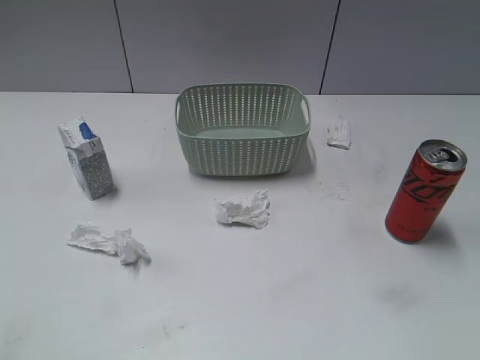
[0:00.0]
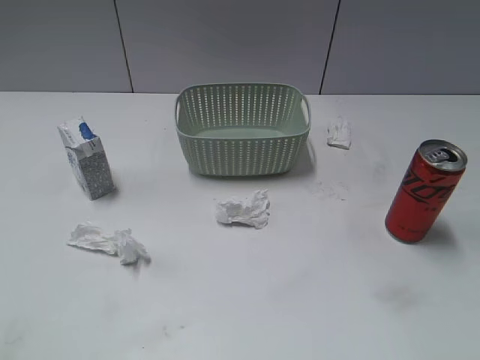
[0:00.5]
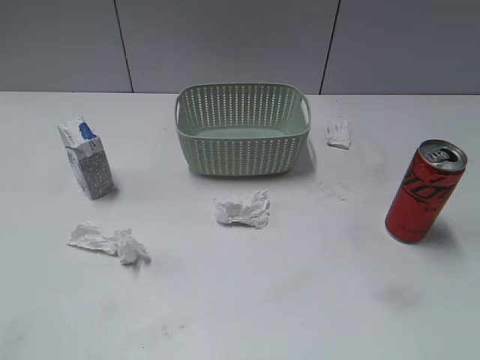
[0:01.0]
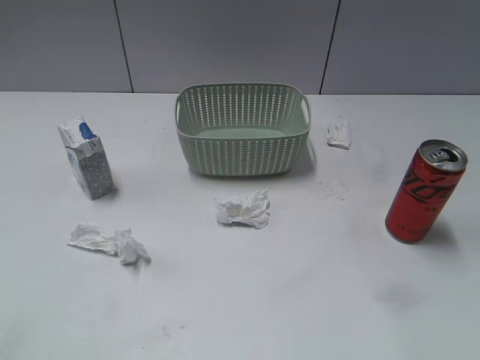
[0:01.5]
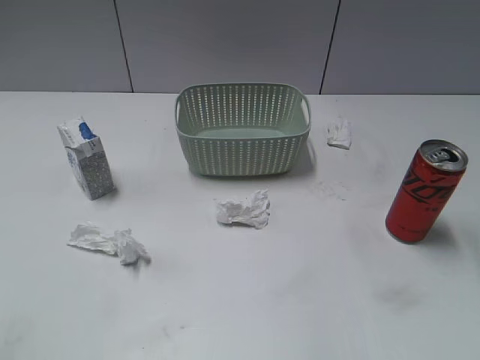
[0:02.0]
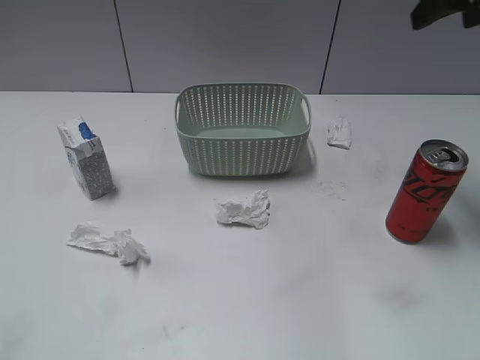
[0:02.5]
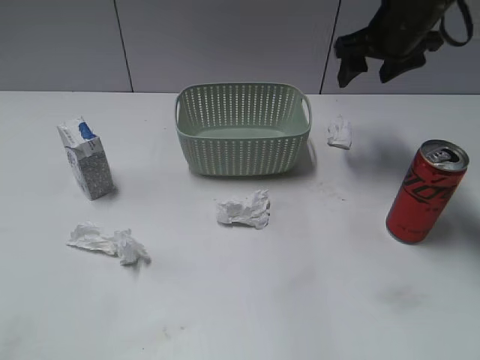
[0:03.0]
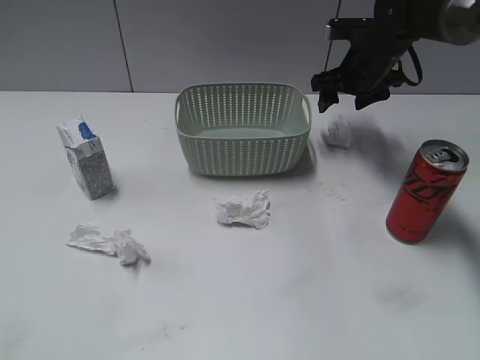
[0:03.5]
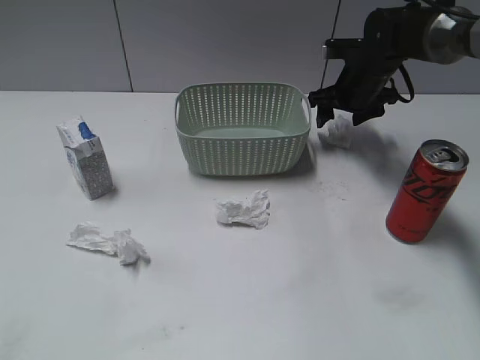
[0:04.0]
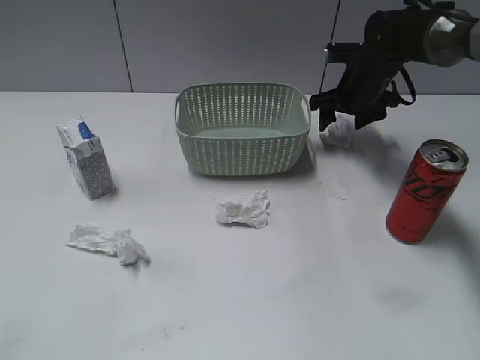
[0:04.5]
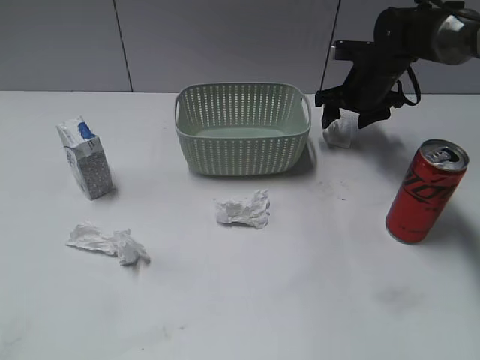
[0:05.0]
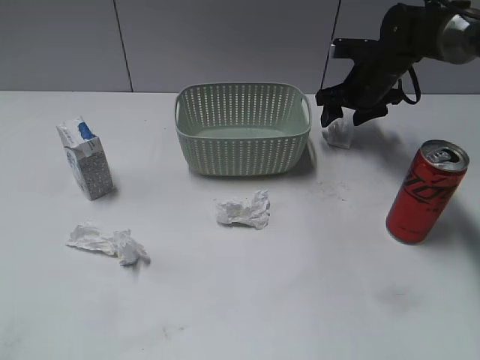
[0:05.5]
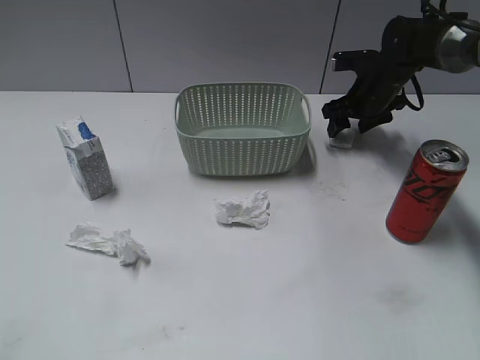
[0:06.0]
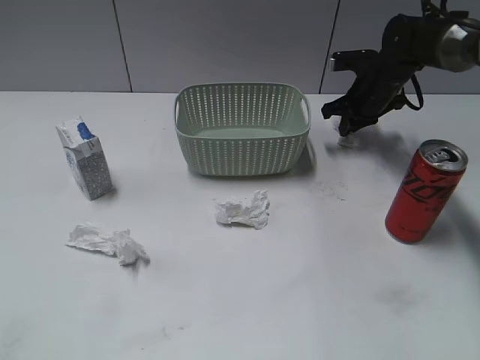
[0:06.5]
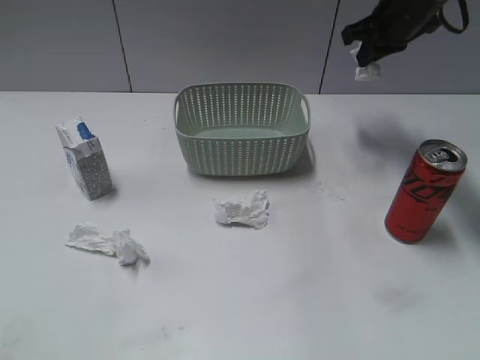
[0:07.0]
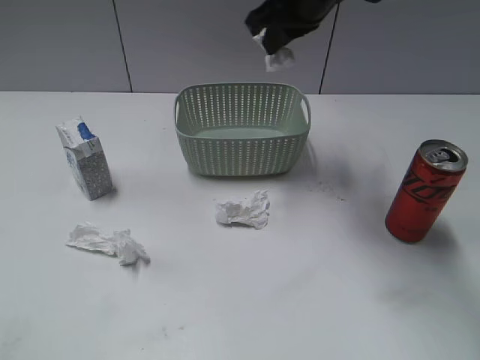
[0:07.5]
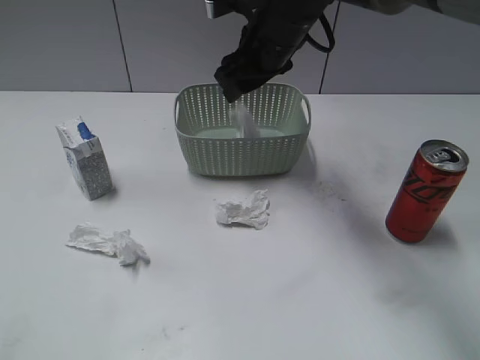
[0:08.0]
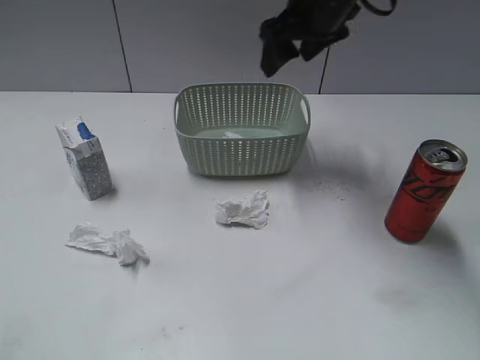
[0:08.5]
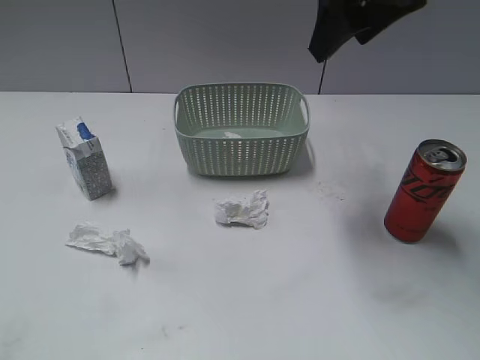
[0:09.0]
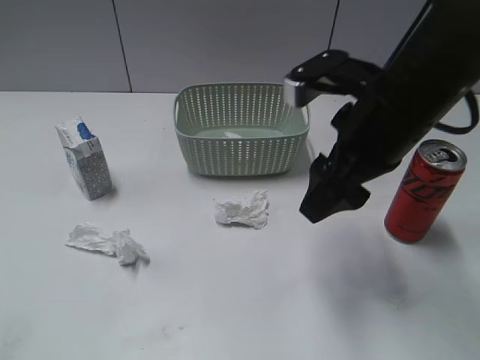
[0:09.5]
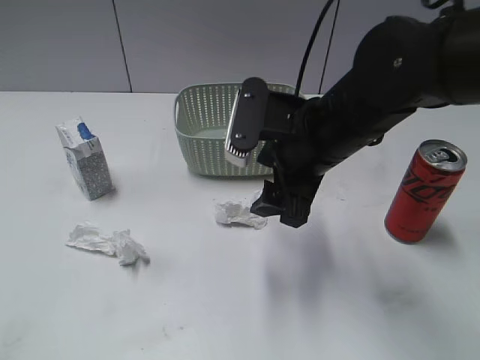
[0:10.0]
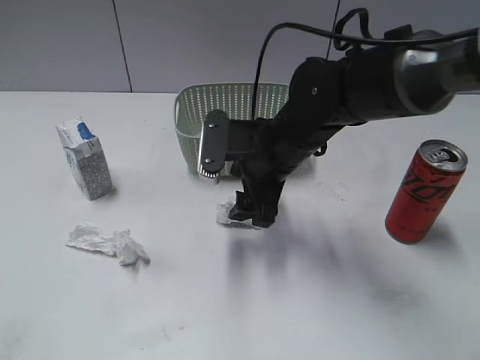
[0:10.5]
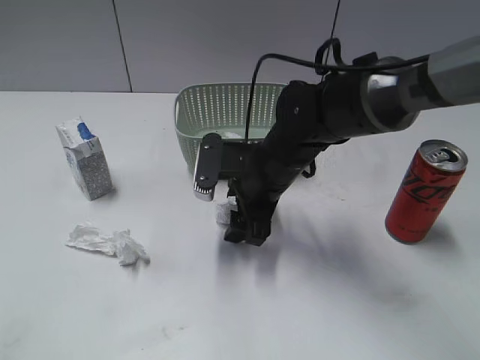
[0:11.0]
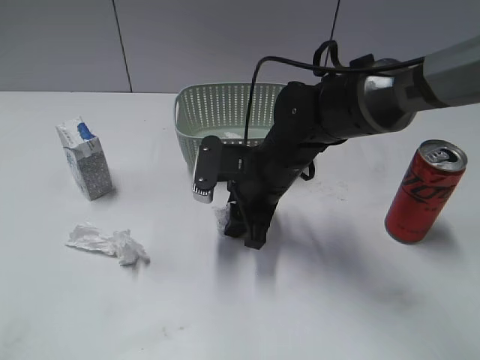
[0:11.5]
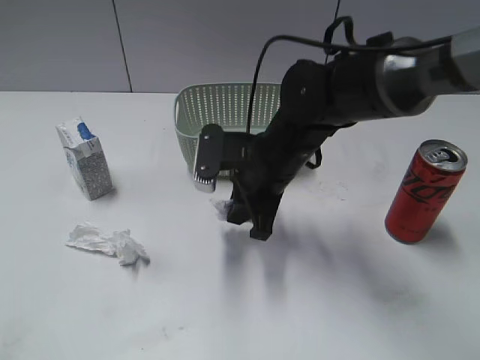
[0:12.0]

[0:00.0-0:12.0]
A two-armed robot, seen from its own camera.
Step, 0:02.5 to 0:06.5: Grasp the waste paper with right gripper.
Step, 0:07.0 to 0:08.0: Place the waste paper in the basket with right gripper.
Step, 0:08.5 to 0:12.0: Grasp the waste paper with right gripper.
0:02.0 to 0:04.0: The right gripper is displaced forward and downward by about 40 cm.
0:04.0 to 0:06.0: The grippers move only a little.
0:06.0 to 0:08.0: The right gripper shifts about 25 cm to the left, upward and backward, and closes, then opens again.
0:08.0 to 0:10.0: The right gripper heads backward, covering some 15 cm.
0:10.0 to 0:12.0: The right gripper is displaced downward by about 10 cm, and closes.

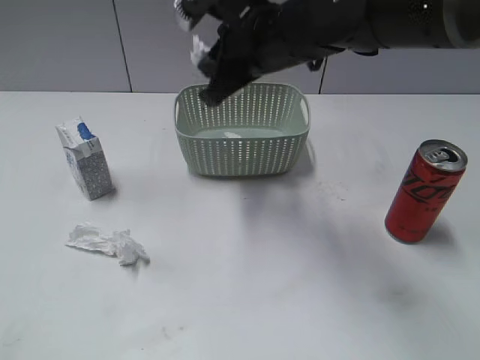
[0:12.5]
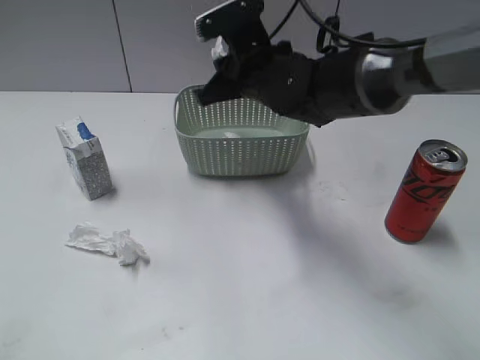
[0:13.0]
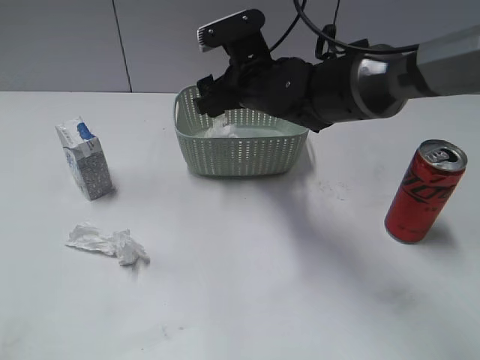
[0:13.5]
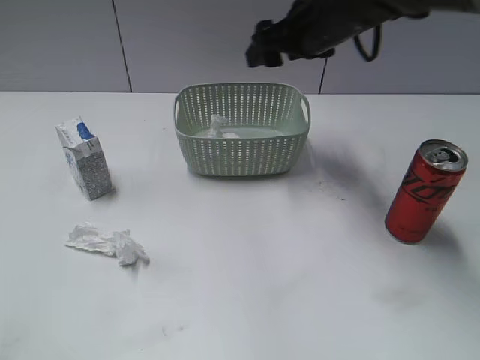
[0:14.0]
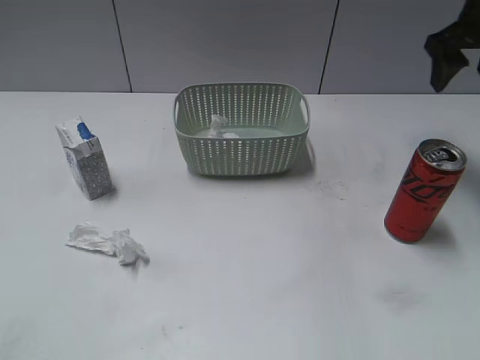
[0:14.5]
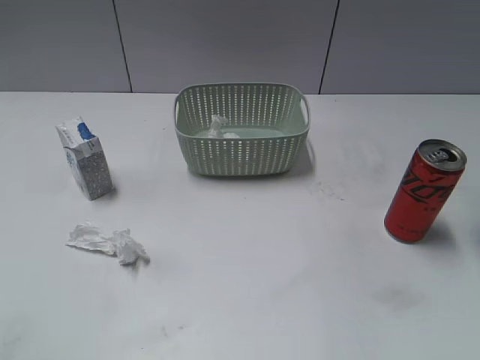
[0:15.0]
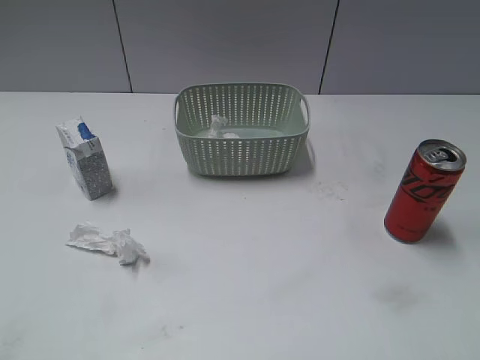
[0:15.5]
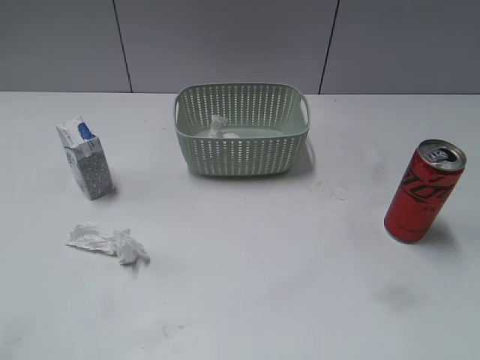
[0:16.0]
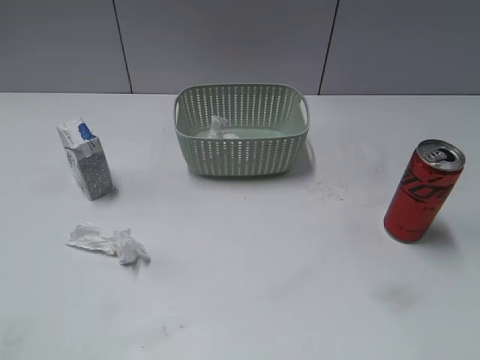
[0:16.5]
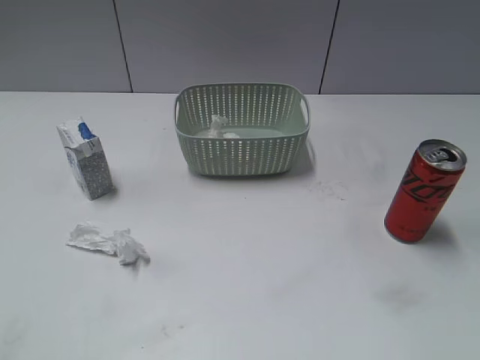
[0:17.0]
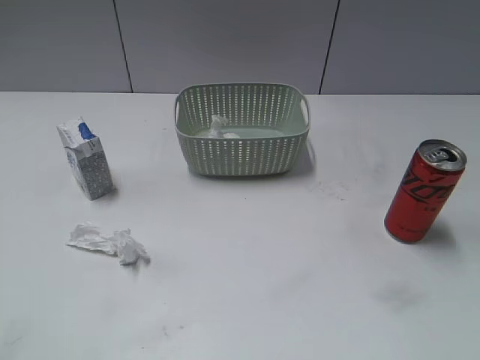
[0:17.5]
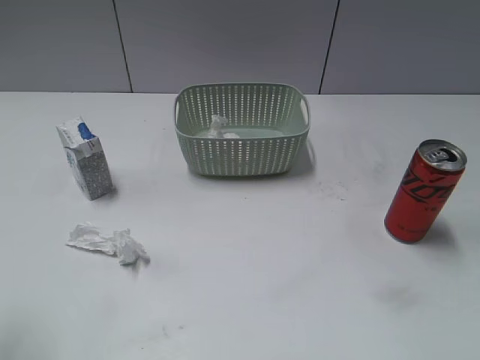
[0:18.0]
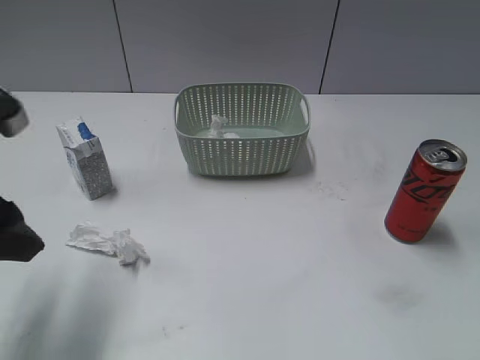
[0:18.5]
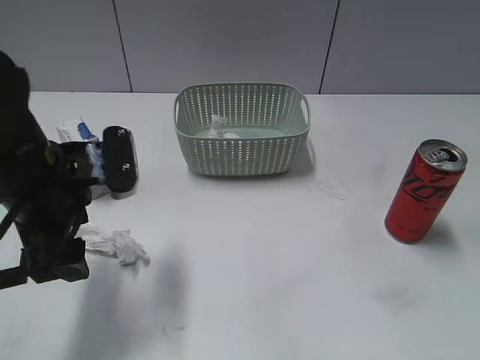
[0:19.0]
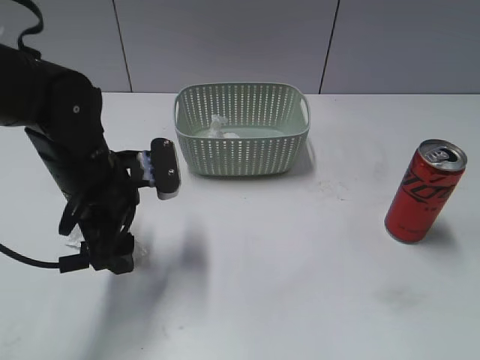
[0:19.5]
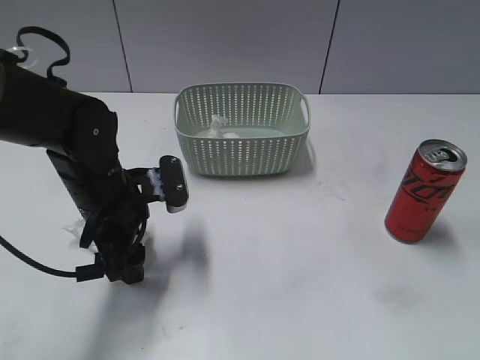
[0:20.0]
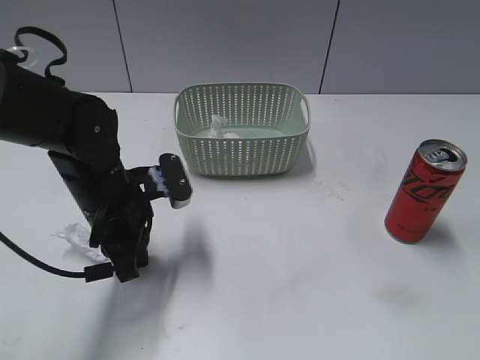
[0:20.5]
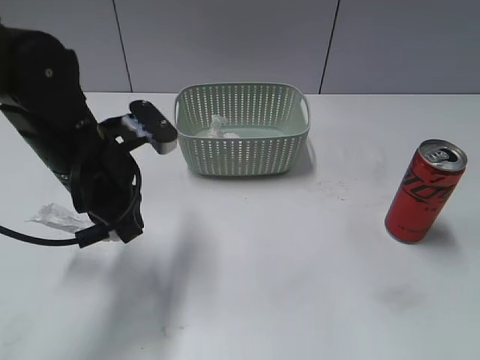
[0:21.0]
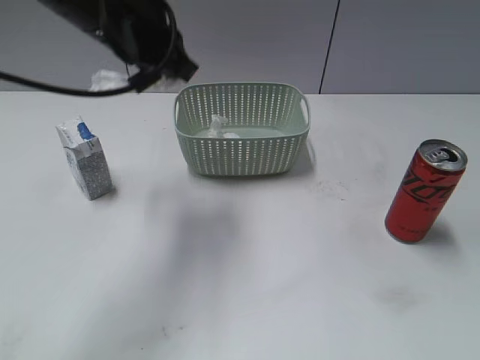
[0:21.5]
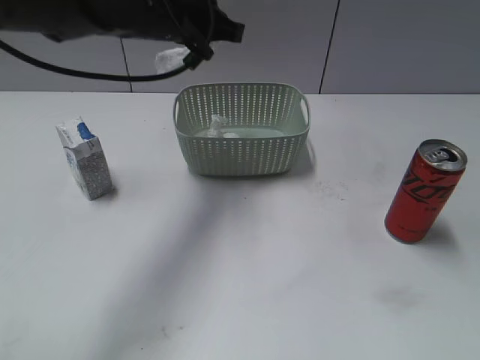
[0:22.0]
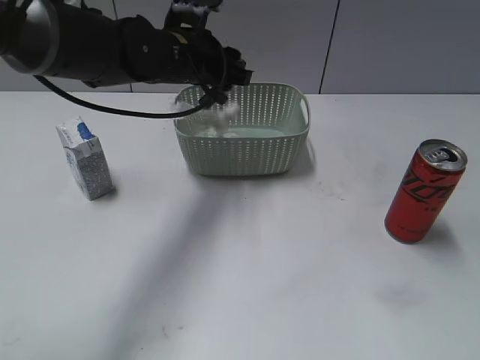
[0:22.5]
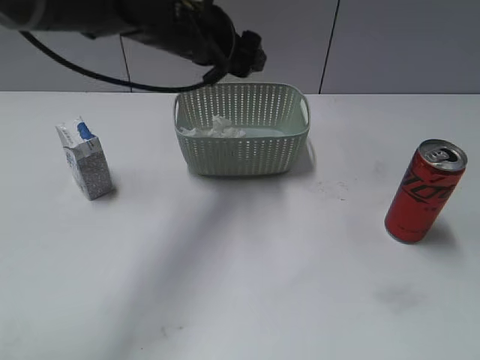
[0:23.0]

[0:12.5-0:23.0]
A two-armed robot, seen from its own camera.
Step, 0:12.5 to 0:13.5: Place the waste paper in the basket with right gripper.
Step, 0:14.0 to 0:20.5: Grasp the waste paper with left gripper.
Step, 0:21.0 to 0:23.0: Place the waste paper in the basket with left gripper.
0:12.5 to 0:14.5: The right gripper goes some 25 cm to the right, and opens.
0:14.5 to 0:16.5: The right gripper is displaced backward by some 40 cm.
0:16.5 to 0:19.0: The left gripper shifts approximately 25 cm forward and to the right.
0:19.0 to 0:21.0: The left gripper reaches some 10 cm downward, then returns, and closes.
0:21.0 to 0:23.0: The left gripper moves forward, to the right and upward, about 15 cm, and opens up.

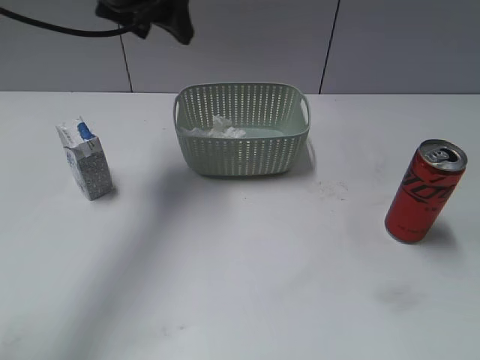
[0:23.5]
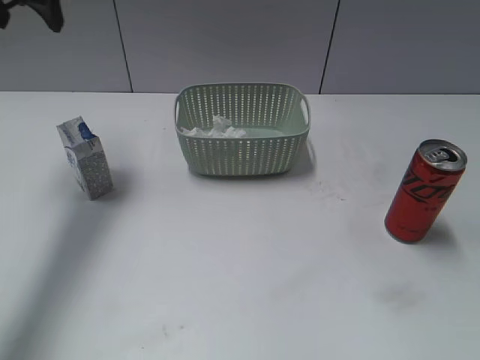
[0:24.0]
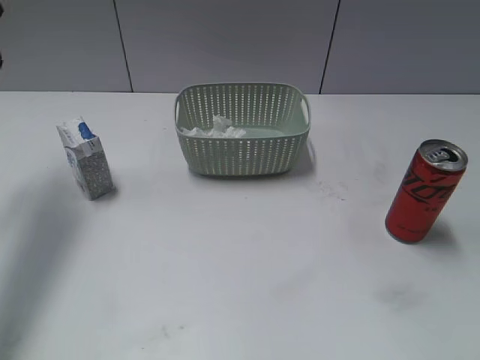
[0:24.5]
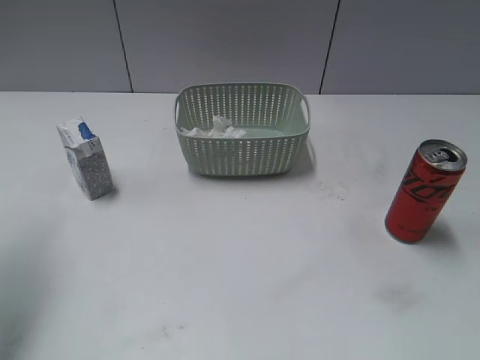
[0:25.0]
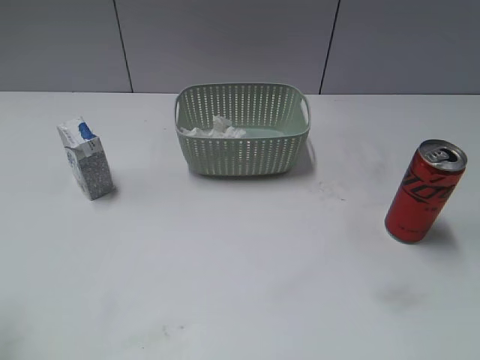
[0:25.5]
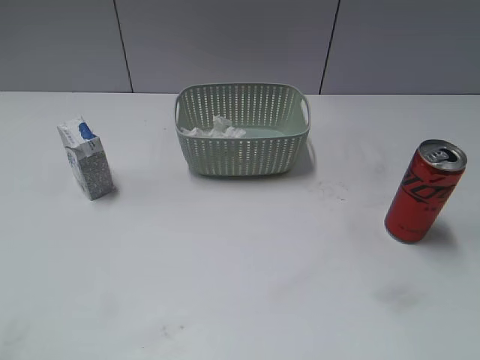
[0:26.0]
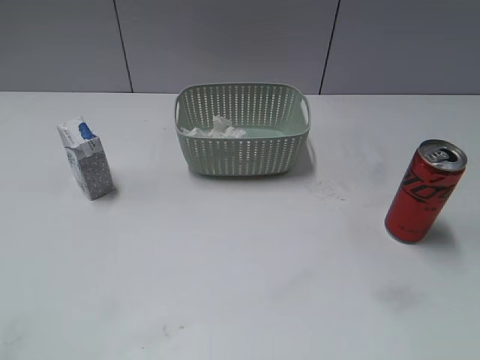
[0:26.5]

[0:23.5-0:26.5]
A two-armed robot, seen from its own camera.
0:23.5 to 0:25.0: The left gripper travels to the left and backward by approximately 25 cm.
0:25.0 to 0:26.5: The left gripper heads backward, covering about 25 cm.
